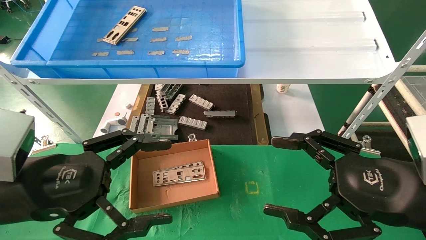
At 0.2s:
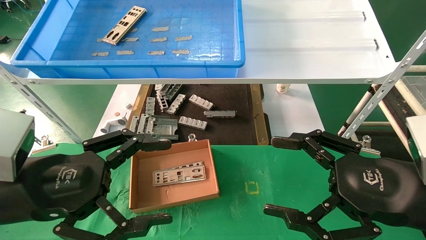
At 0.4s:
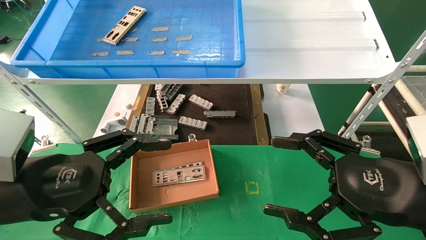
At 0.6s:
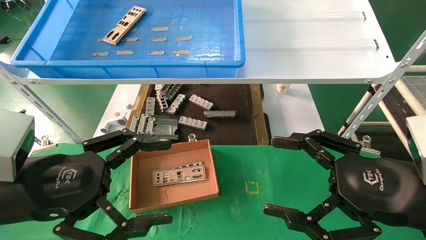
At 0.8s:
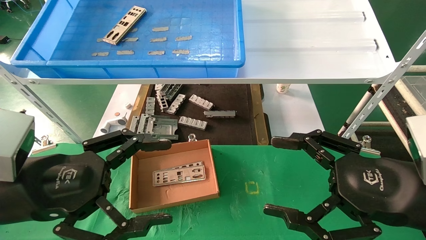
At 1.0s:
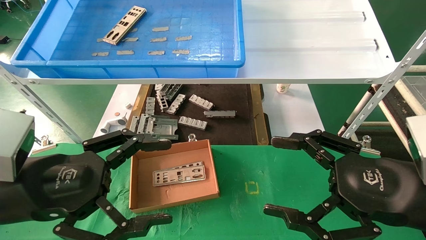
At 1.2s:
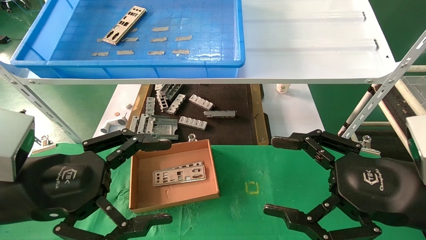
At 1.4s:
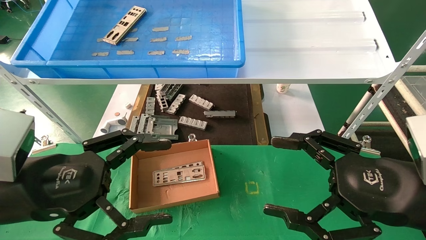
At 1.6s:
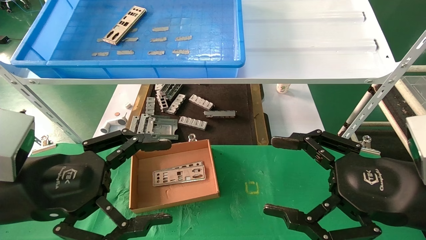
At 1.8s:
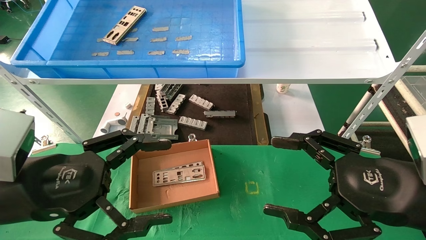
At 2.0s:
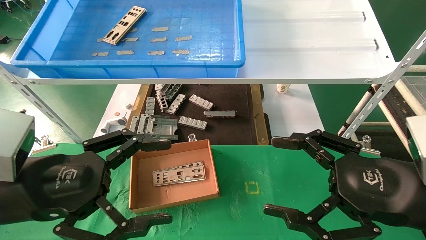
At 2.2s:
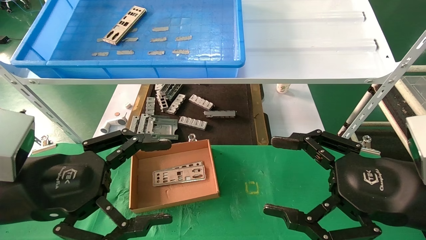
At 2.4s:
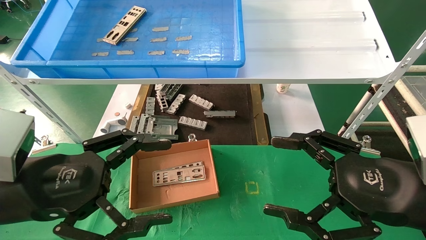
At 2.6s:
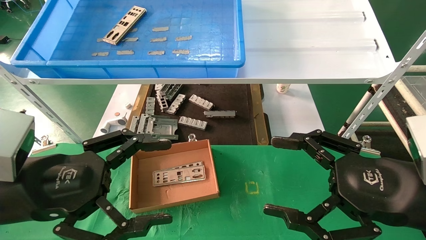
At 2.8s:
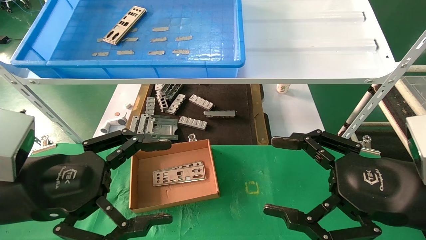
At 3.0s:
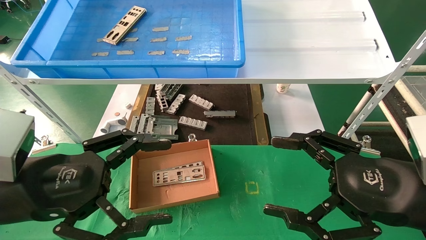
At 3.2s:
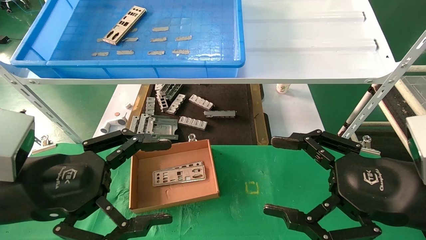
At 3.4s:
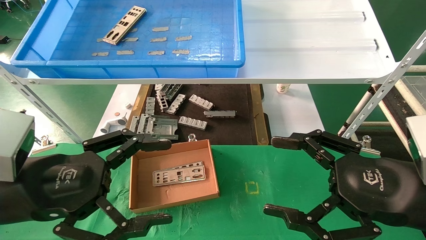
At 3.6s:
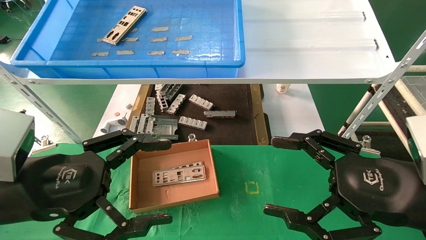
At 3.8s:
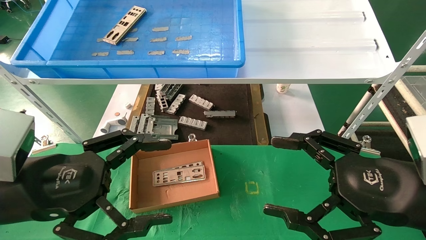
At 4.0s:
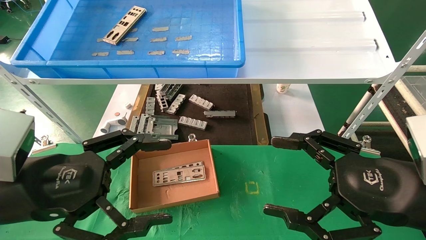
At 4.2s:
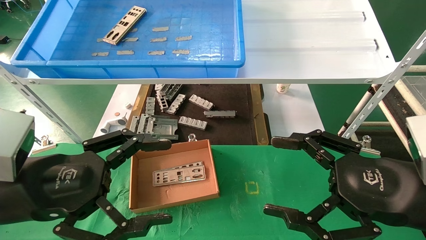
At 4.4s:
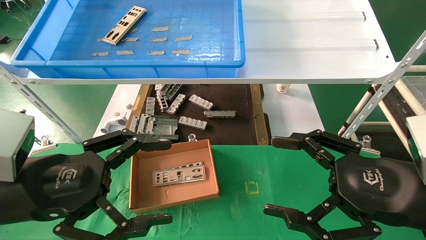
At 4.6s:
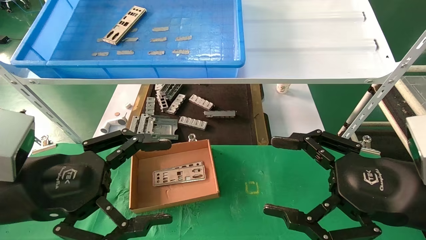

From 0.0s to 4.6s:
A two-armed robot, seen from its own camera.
Task of the whole recording: pick up the parts on the tray and put them in the cardboard box.
From 0.0s to 4.6s: Neither gripper changes place.
